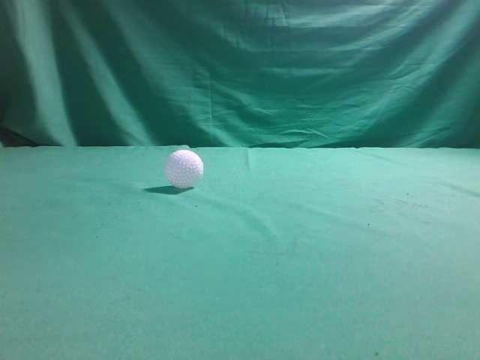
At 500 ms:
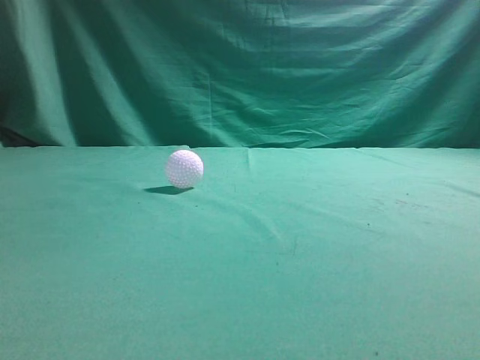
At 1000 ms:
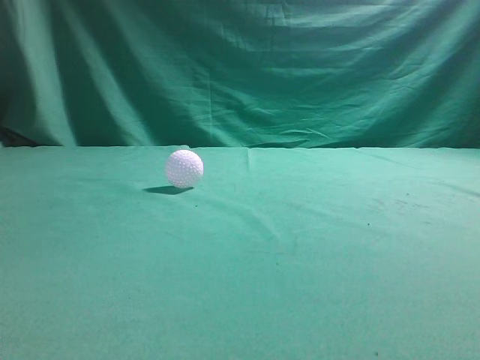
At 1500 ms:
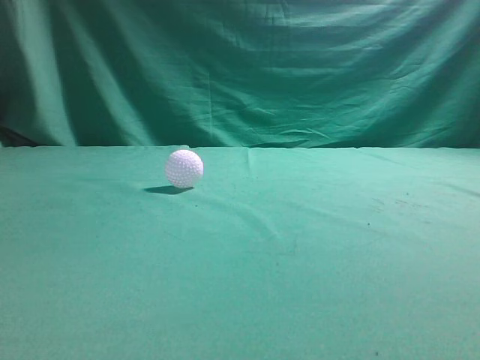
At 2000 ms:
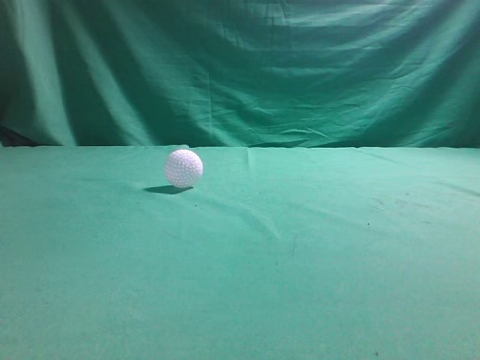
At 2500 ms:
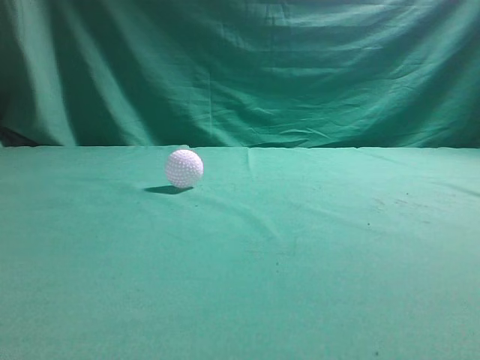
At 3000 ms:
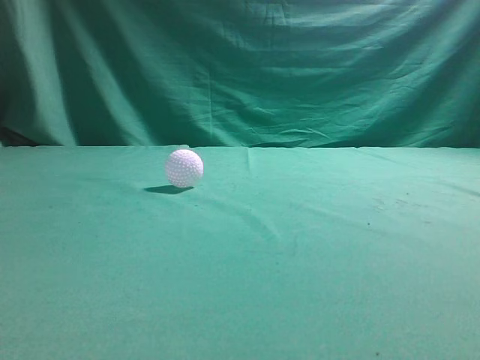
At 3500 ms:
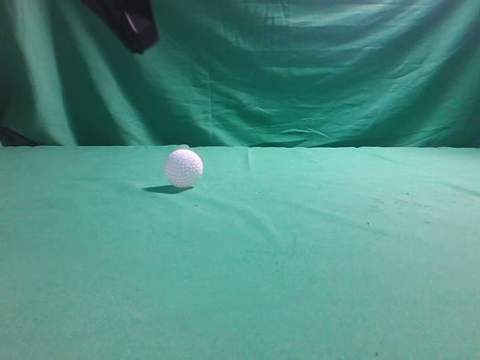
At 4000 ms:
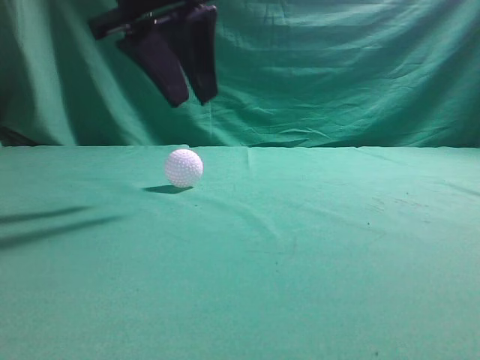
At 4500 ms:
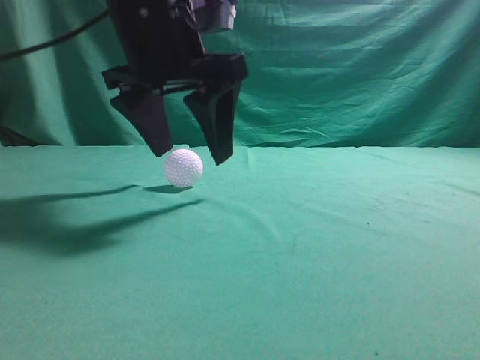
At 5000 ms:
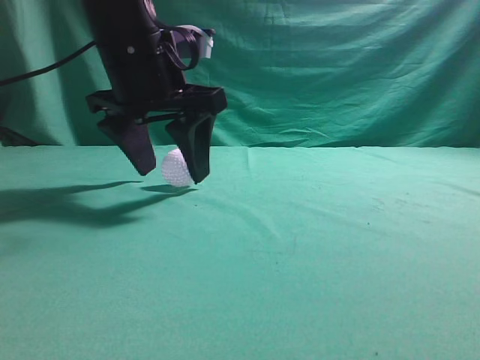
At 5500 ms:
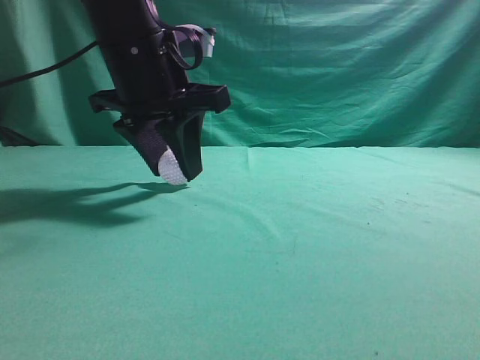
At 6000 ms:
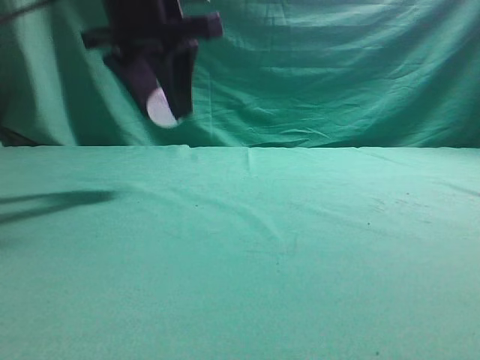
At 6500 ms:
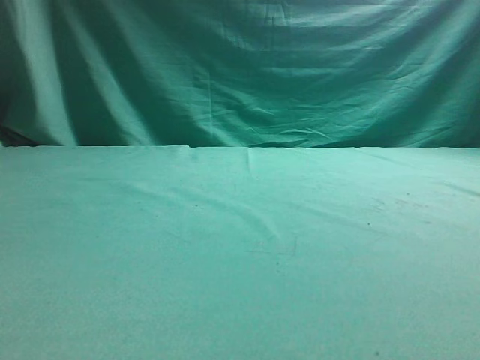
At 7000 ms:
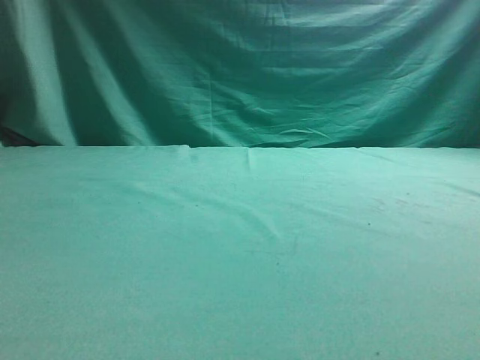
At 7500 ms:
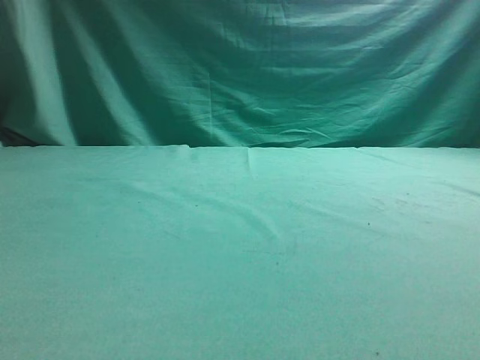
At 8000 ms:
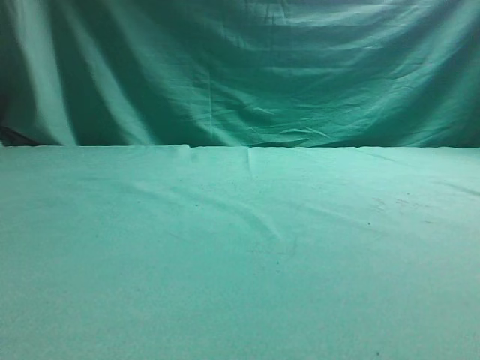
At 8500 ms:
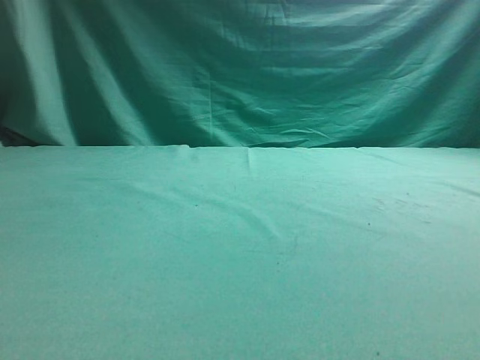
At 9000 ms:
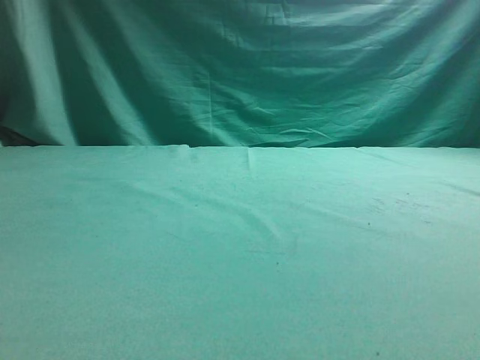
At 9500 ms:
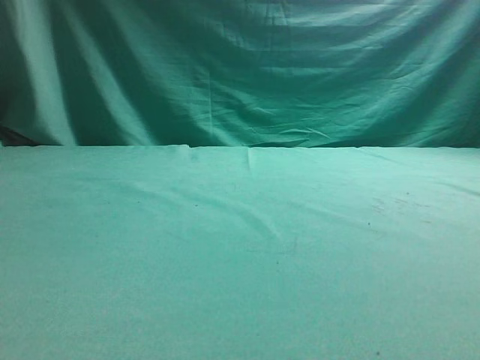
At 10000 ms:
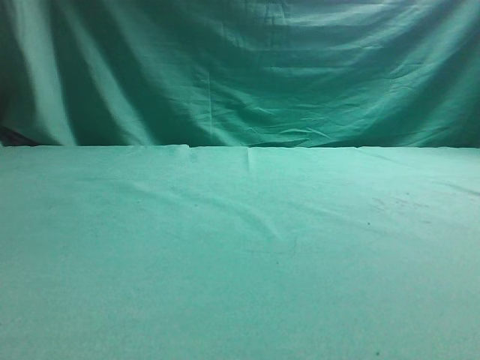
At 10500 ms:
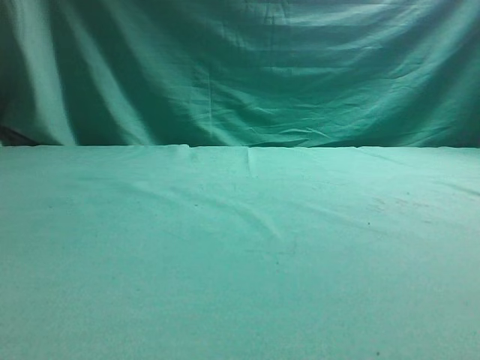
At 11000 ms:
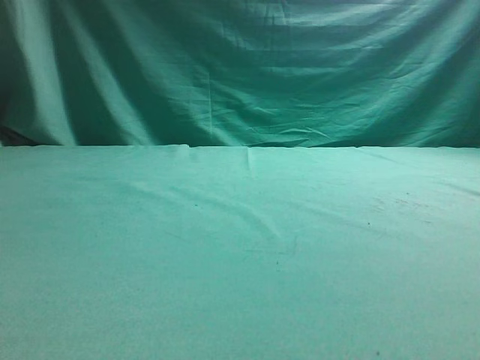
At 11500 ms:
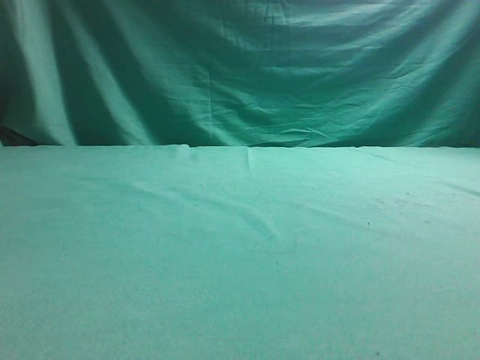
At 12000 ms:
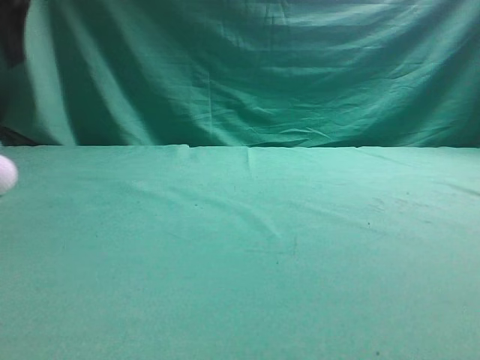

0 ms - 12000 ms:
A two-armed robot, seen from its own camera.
Task of the whole recording: pick up the ball and place it on the plate, then pick up the ball from the plate and put it in the center of the table.
Step, 0 ms - 5500 ms: Grab the spherical object with your left arm.
Step, 6000 ms - 11500 ms: Place the sphere on the white object.
2000 ms - 4000 ms: The left gripper moves forward and to the right, roughly 35 cm, and opens its fingers.
4000 ms - 6000 ms: The left gripper opens and closes again.
6000 ms - 8000 ms: The left gripper travels to the left, backward and upward by about 25 cm.
10000 ms - 12000 ms: The left gripper moves upward and forward, roughly 10 cm, and opens.

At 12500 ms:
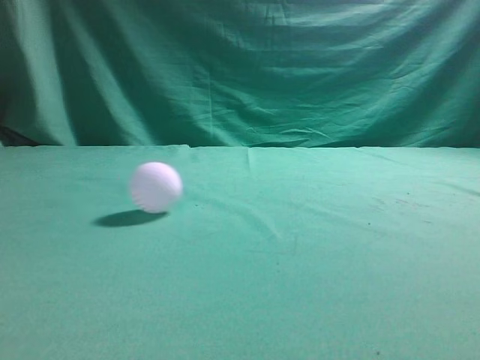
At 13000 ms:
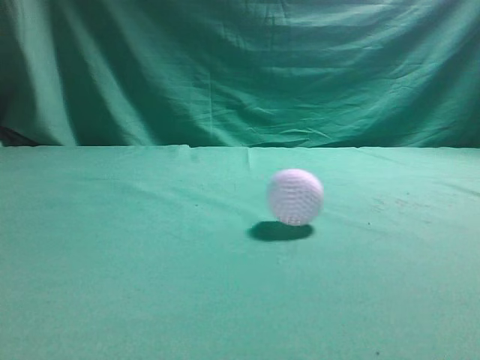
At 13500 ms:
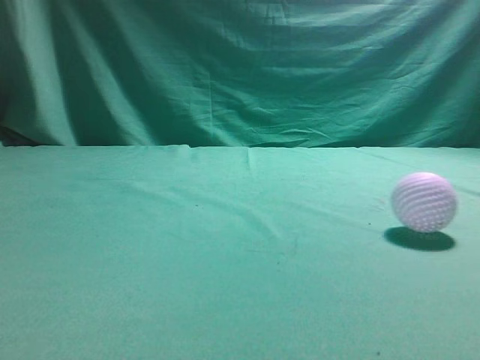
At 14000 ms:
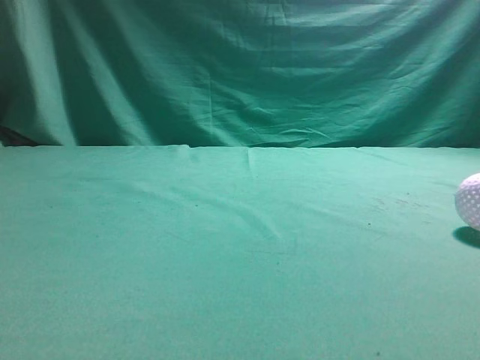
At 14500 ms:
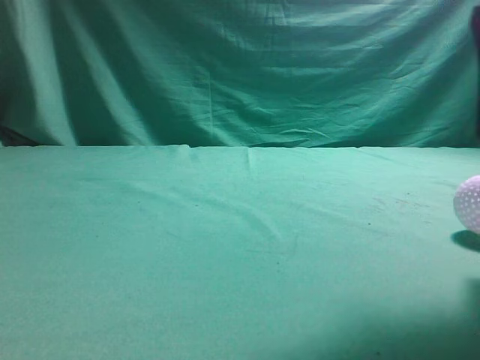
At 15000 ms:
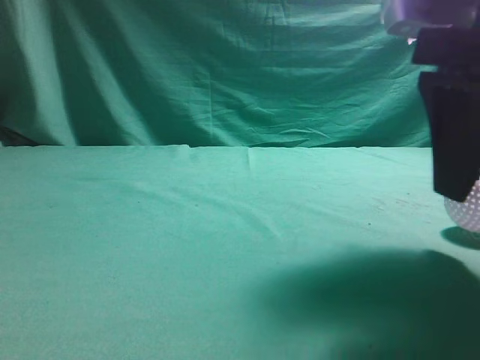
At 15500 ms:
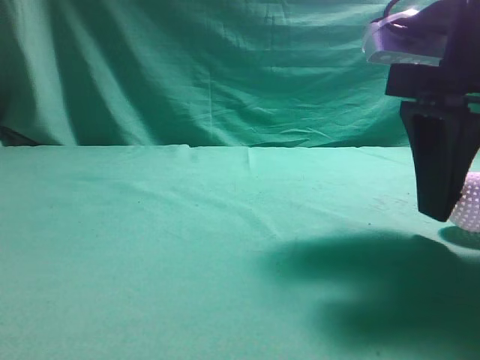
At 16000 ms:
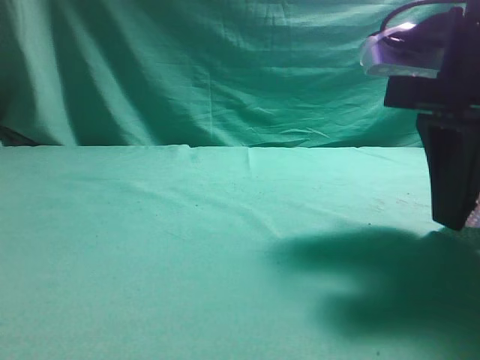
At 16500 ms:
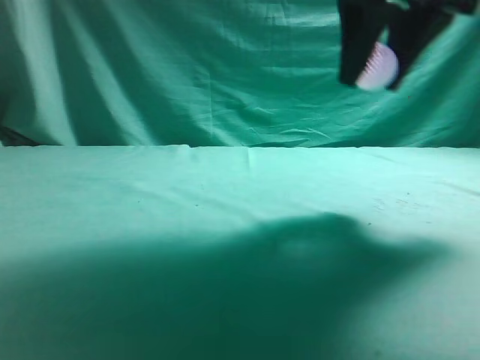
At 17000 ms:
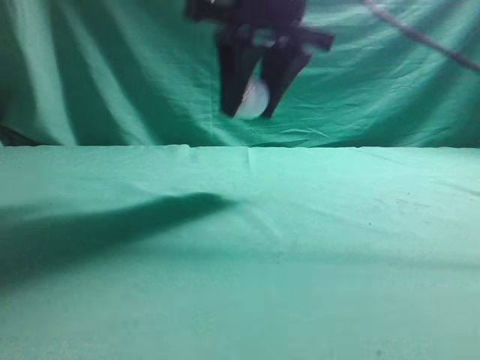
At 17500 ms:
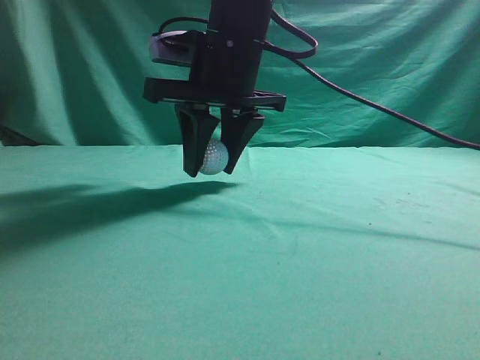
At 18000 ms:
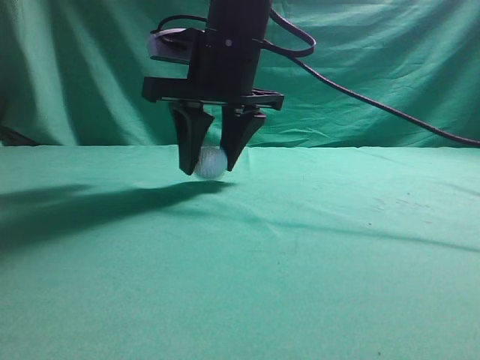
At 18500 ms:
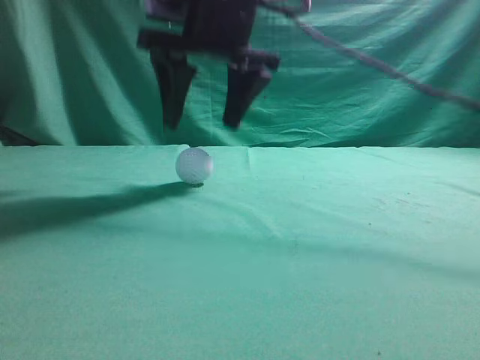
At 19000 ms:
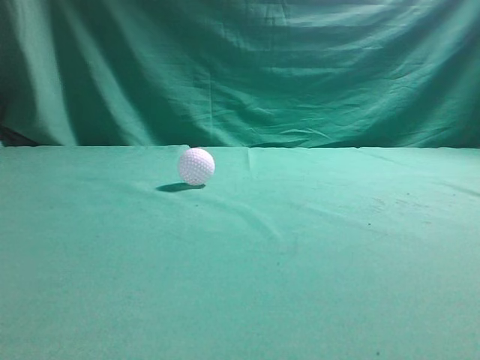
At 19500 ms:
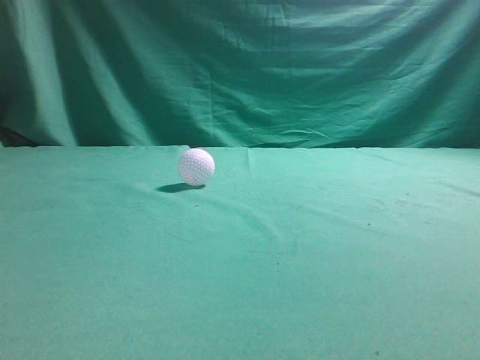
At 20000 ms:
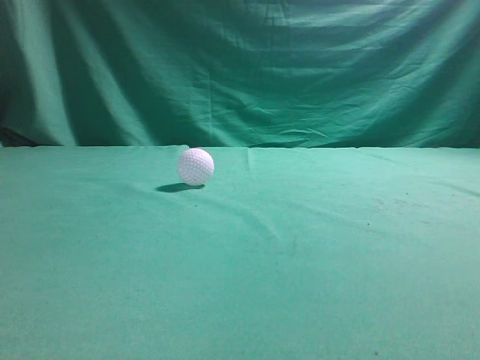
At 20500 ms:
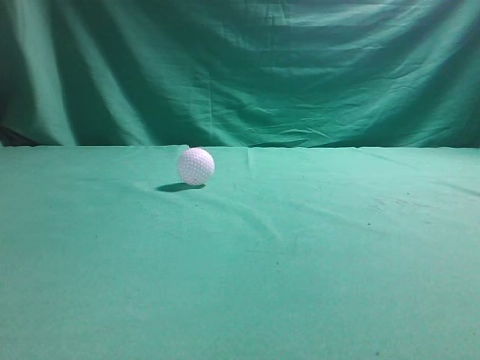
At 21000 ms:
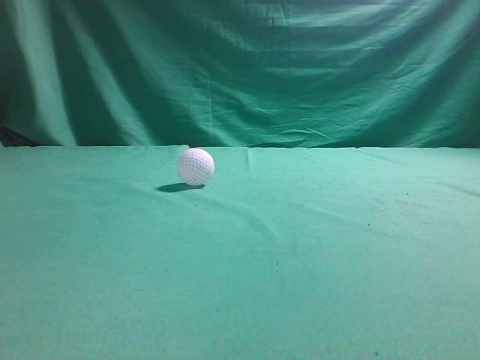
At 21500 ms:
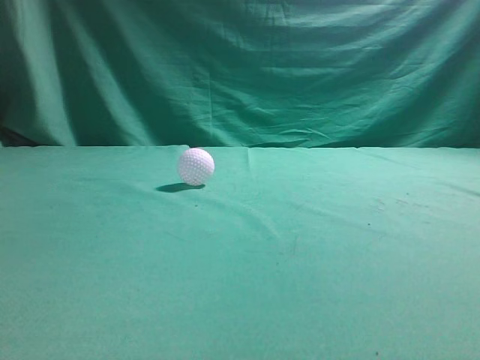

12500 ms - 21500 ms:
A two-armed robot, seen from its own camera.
Task of the whole recording: pick up the ball and place it on the plate, then pick up the ball from the plate and put it in the center of the table.
Step, 12500 ms - 16000 ms: Grab the rolling spherical object.
Step, 16500 ms - 18000 ms: Put the picked-up object on the table.
12500 ms - 14500 ms: The left gripper moves backward, approximately 25 cm, while the right gripper goes roughly 5 cm to the left, and opens.
14500 ms - 17000 ms: The left gripper shifts roughly 5 cm downward; the right gripper heads to the left and forward, covering approximately 20 cm.
17000 ms - 19500 ms: The right gripper travels upward, backward and to the right by about 25 cm, and closes.
